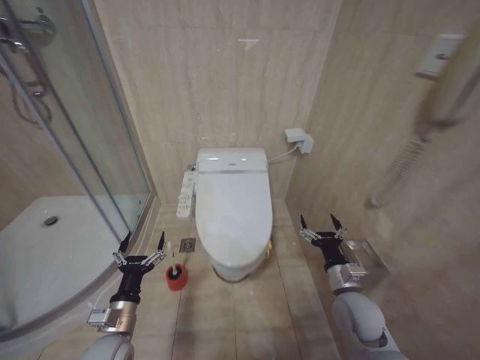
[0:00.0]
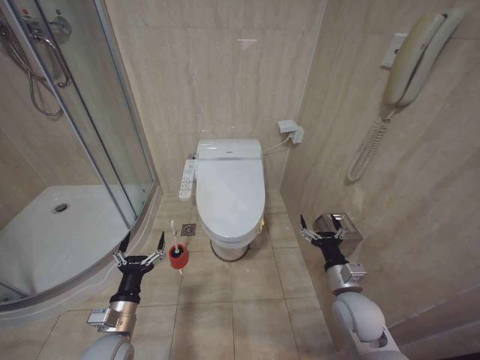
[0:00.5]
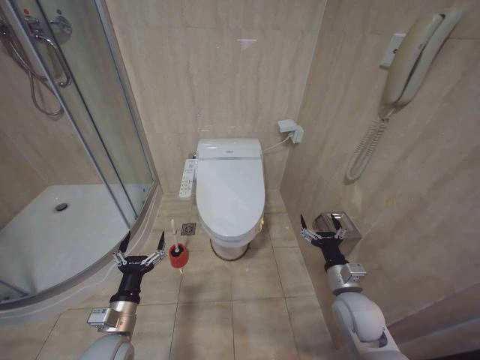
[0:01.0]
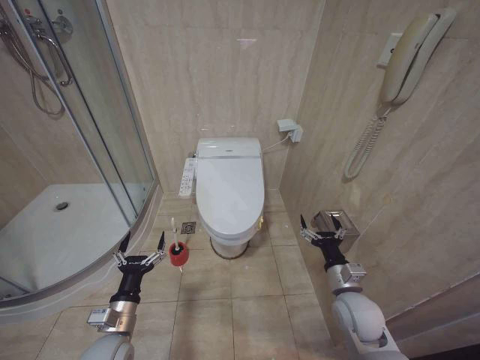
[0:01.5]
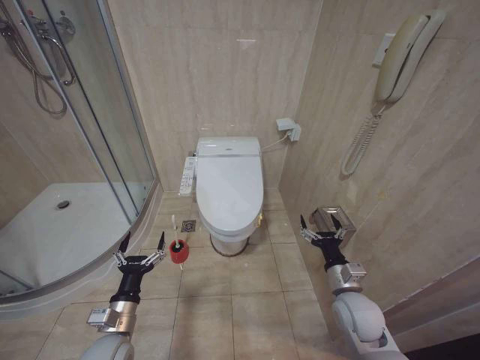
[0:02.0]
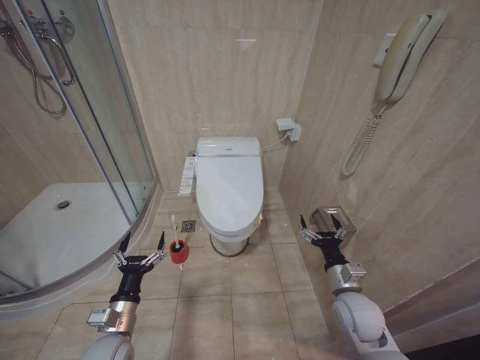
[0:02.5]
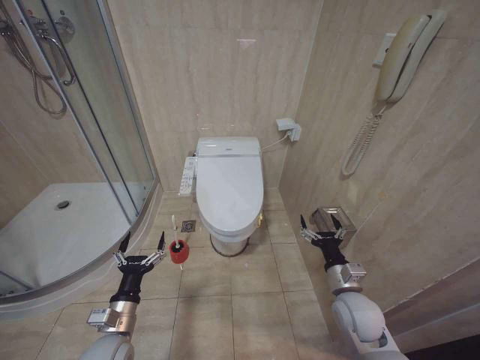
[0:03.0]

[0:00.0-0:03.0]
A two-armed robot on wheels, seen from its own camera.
Task of the whole recording: Open the toilet lid, clean the toilet bowl with a toilet brush, close the toilet lid, and flush.
0:00.0 to 0:03.0: Both grippers stay about where they are.
